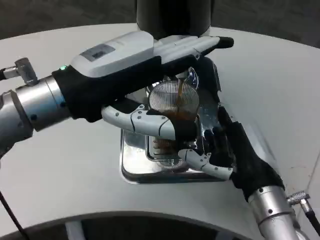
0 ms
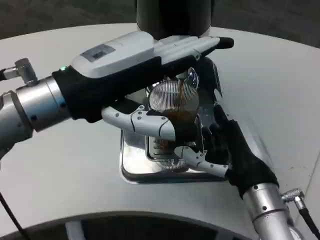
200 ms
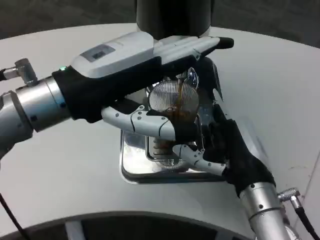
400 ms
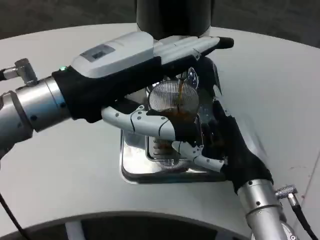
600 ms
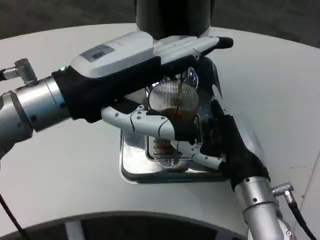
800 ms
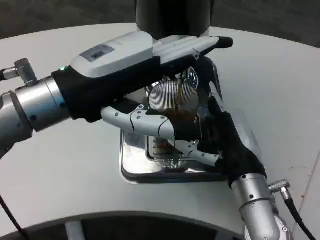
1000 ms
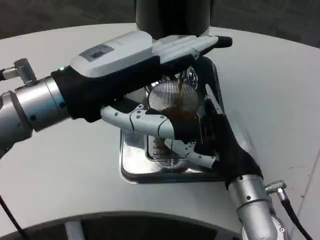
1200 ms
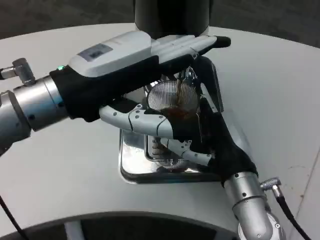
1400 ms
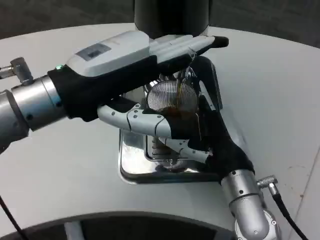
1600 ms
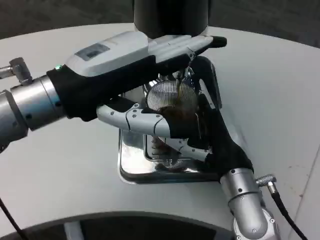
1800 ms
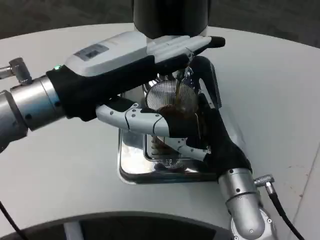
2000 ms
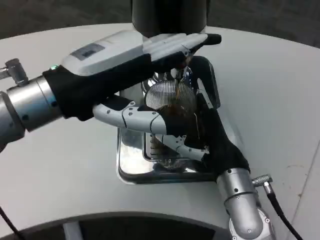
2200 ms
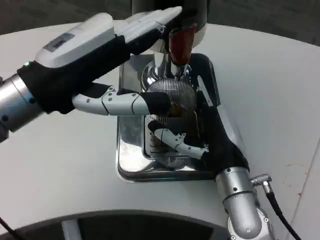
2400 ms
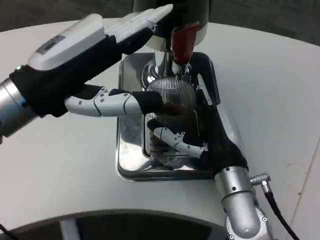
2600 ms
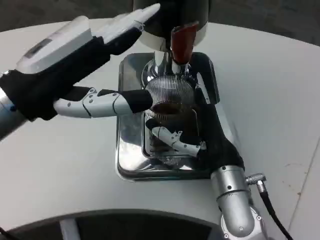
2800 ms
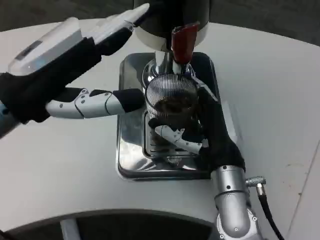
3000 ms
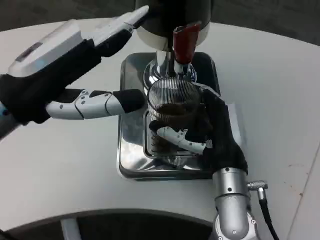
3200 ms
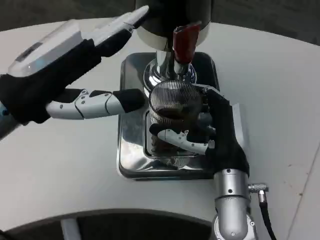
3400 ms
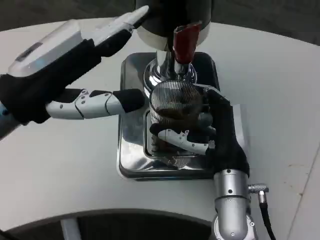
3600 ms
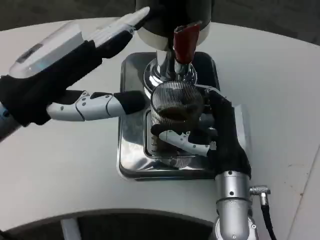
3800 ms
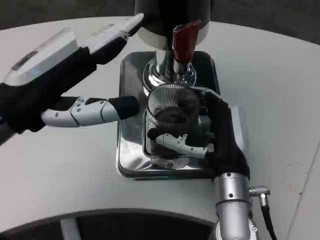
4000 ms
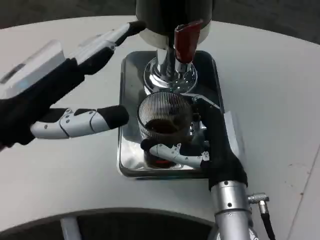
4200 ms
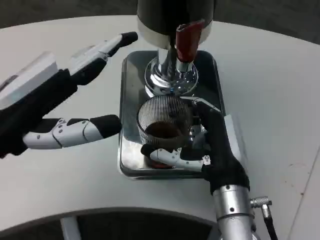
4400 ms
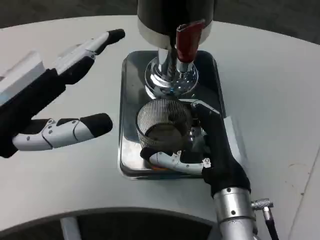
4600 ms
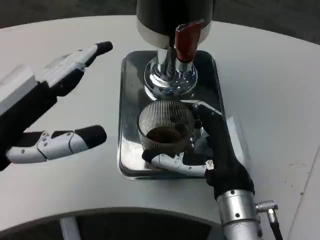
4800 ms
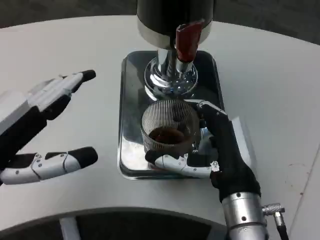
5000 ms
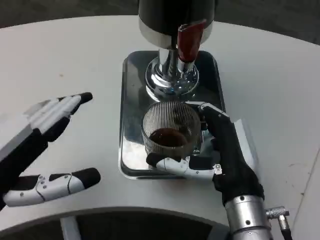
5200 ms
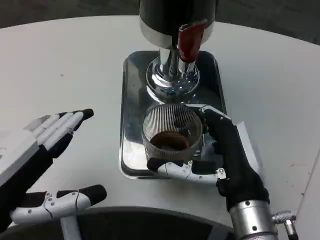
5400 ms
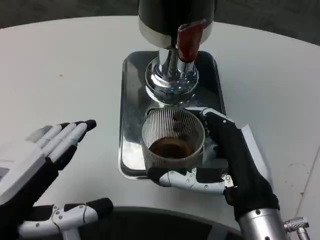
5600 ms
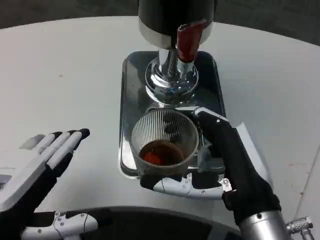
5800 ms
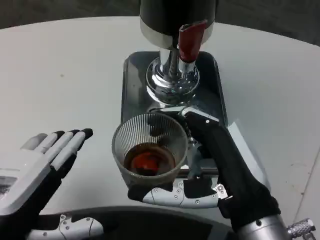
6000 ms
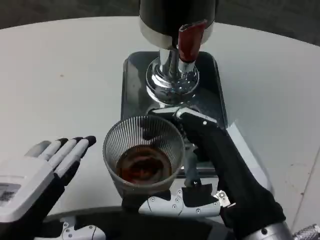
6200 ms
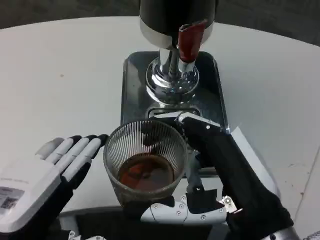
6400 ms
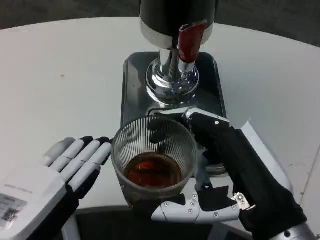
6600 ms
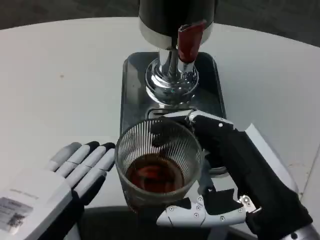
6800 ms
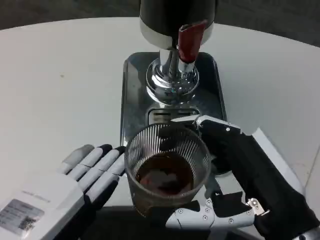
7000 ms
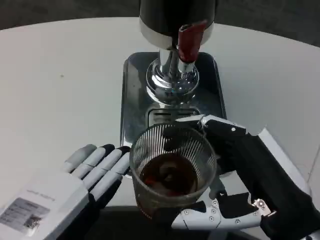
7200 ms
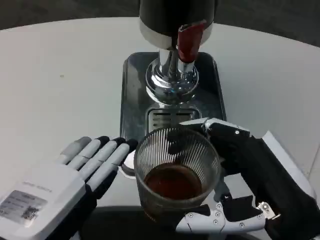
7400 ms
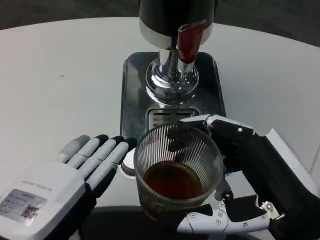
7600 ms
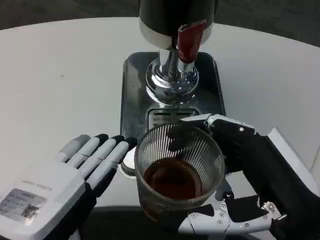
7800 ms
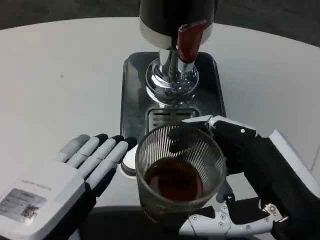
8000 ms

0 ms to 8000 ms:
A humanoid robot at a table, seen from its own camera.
Task of the whole recording: Grasp the cup under the faucet to collect the drink, then remove the cup.
0 ms to 1600 ms: The hands stay close to where they were, moving slightly.
3200 ms to 4800 ms: The left hand shifts roughly 5 cm backward.
4800 ms to 6400 ms: The left hand goes approximately 10 cm backward and downward, while the right hand goes approximately 10 cm backward and upward.

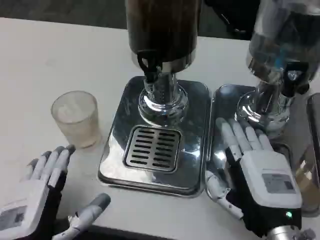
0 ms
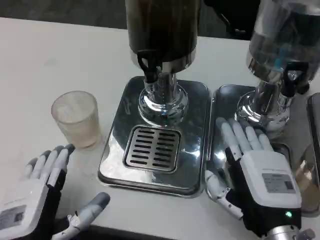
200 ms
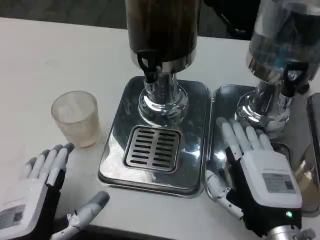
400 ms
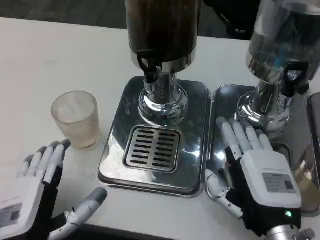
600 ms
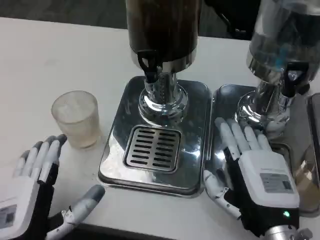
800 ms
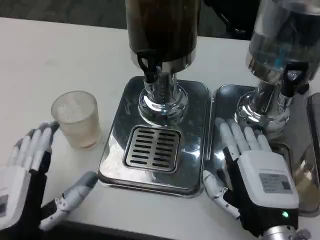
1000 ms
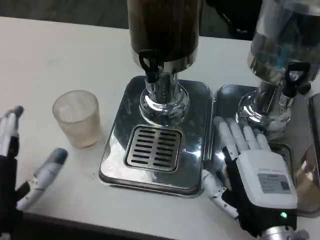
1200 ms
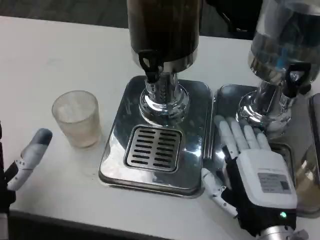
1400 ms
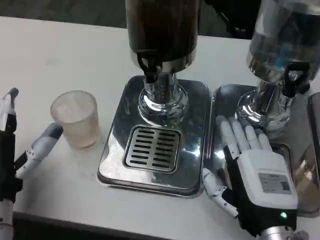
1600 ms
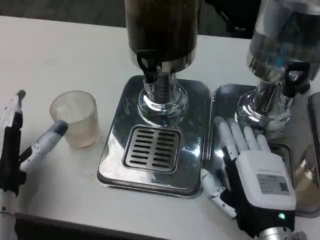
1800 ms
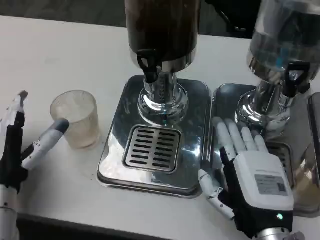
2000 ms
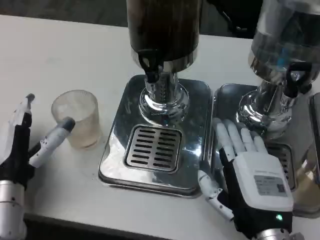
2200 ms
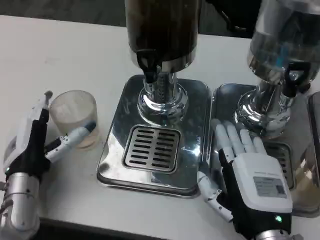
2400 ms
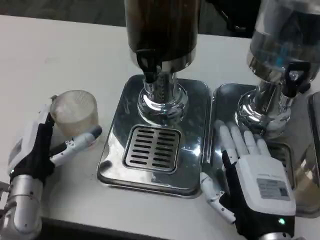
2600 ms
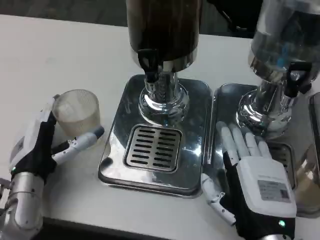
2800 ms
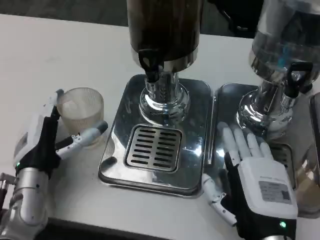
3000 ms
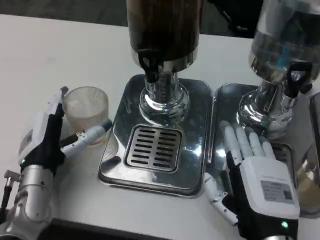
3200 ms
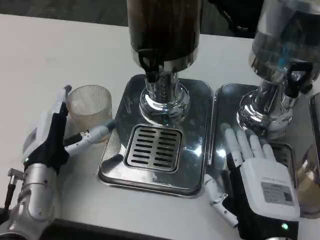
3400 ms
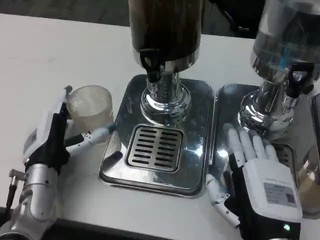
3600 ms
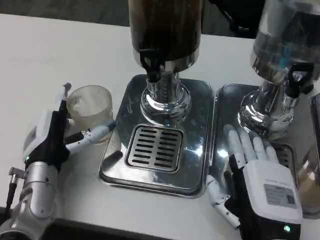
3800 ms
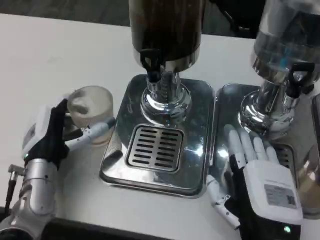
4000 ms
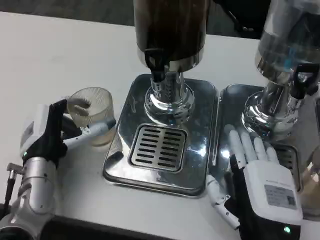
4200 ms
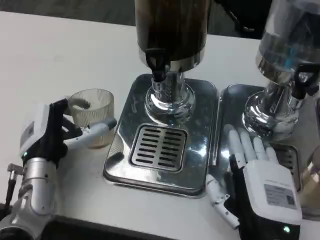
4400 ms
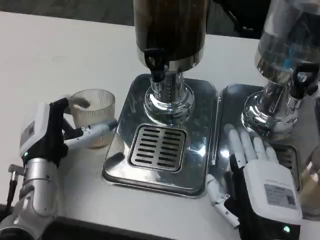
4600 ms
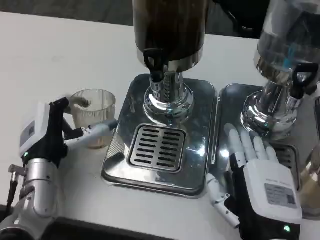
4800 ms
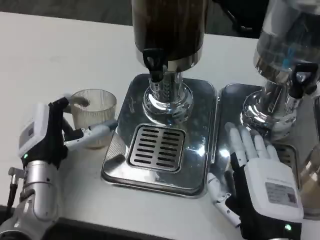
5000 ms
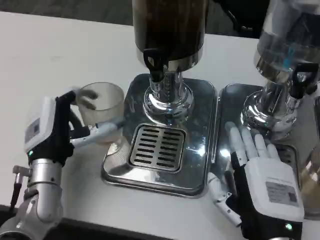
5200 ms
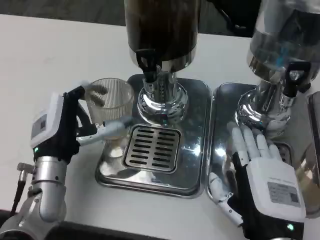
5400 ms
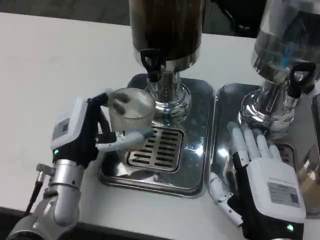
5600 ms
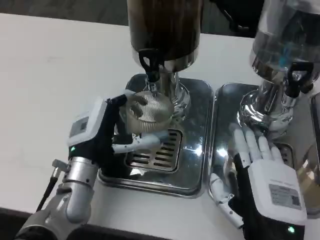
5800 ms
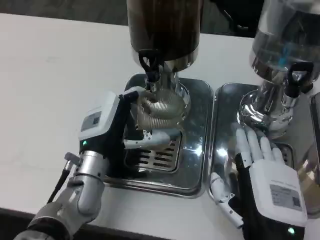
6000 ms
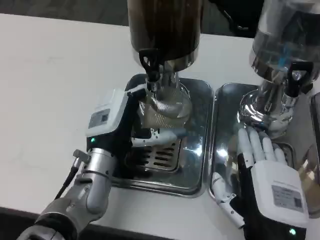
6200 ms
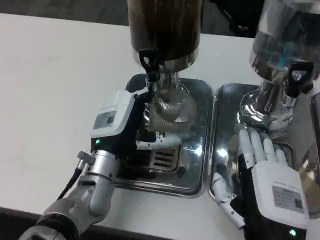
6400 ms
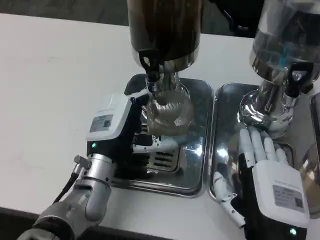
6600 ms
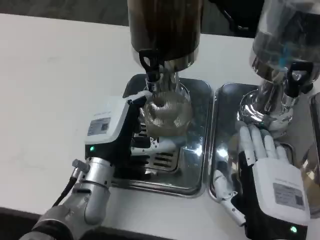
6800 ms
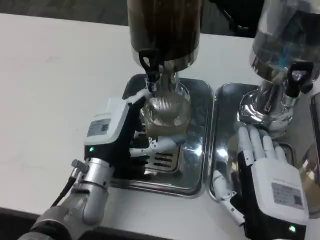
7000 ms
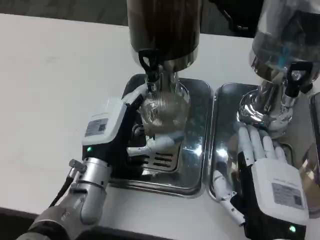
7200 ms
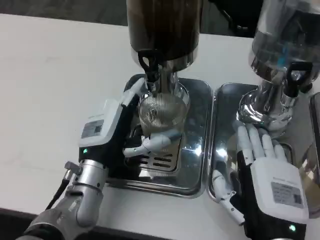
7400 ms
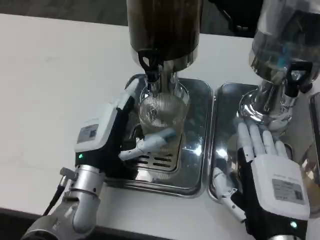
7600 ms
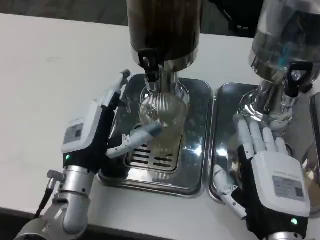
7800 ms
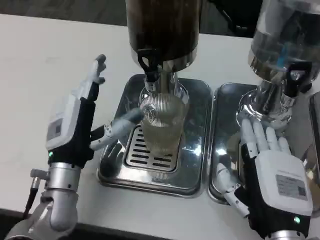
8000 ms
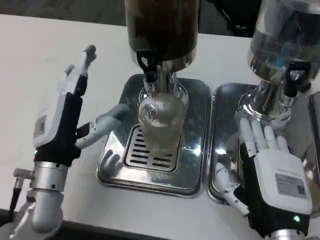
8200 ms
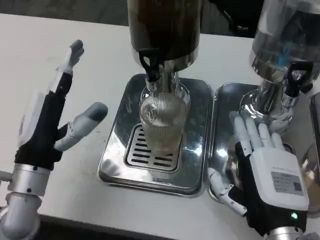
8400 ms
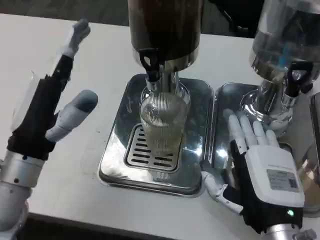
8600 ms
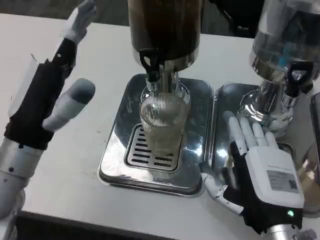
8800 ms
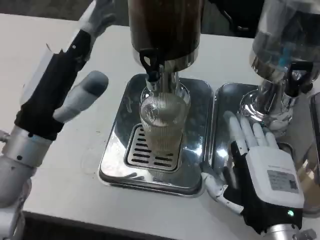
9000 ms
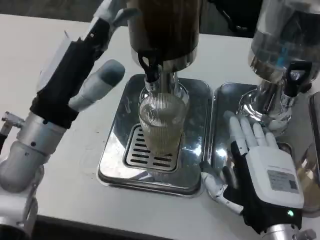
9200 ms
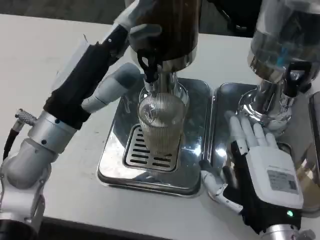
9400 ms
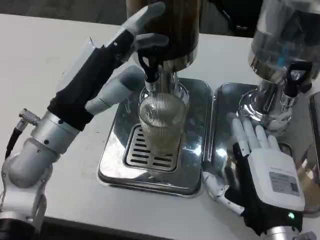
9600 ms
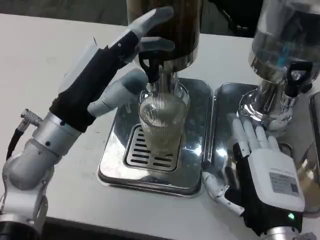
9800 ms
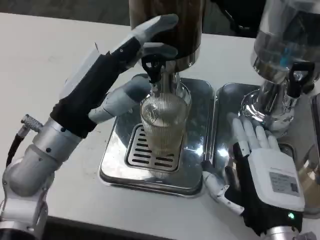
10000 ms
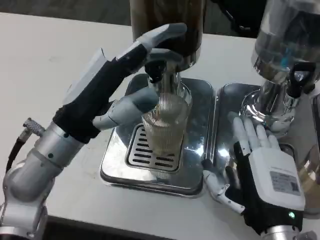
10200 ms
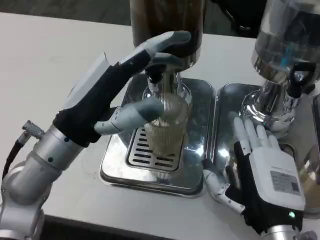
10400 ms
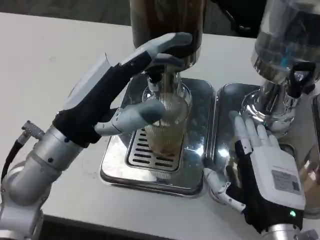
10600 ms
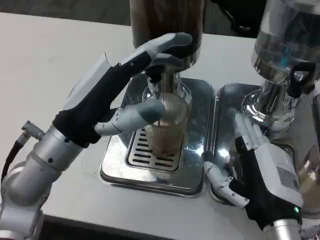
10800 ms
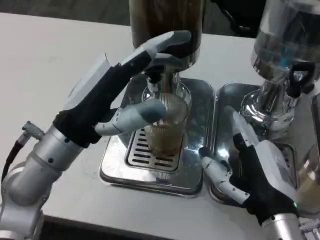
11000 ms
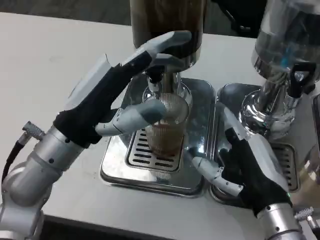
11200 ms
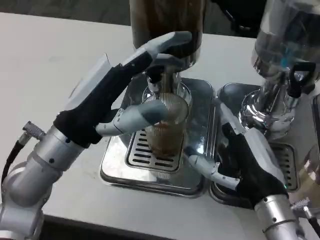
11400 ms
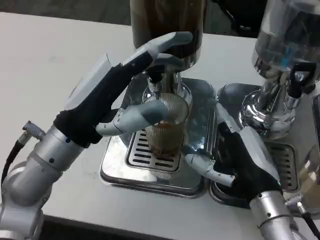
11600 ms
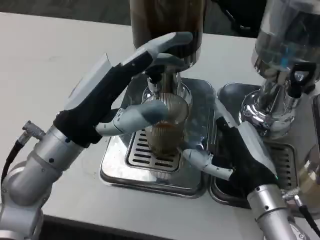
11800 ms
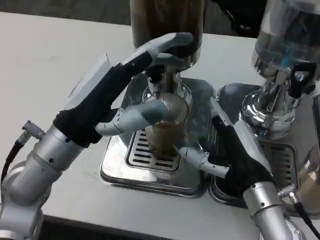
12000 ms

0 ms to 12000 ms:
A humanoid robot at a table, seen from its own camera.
Task of the whole recording: Grasp the cup under the faucet to collect the drink, then remove the cup.
0 ms to 1600 ms: The left hand heads forward, covering roughly 10 cm.
1600 ms to 3000 ms: The left hand travels forward by about 5 cm.
4400 ms to 6000 ms: The left hand is displaced to the right by about 5 cm.
6000 ms to 7600 ms: The hands make only small movements.
7600 ms to 9000 ms: The left hand heads upward and to the left, covering roughly 10 cm.
10400 ms to 12000 ms: The right hand moves forward, approximately 5 cm.

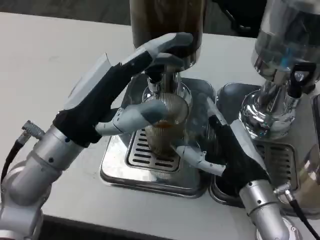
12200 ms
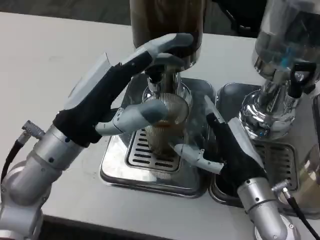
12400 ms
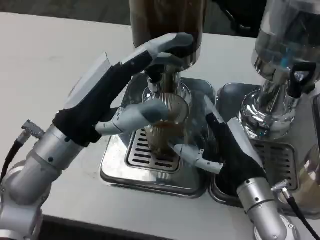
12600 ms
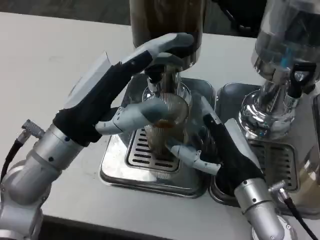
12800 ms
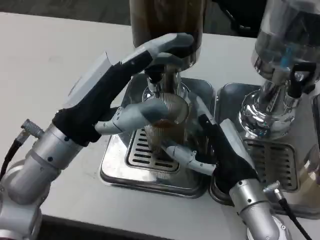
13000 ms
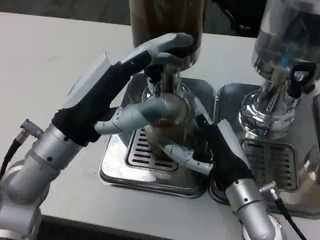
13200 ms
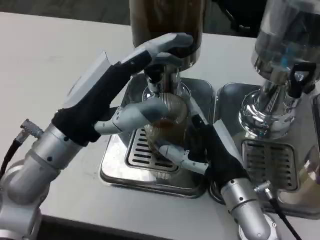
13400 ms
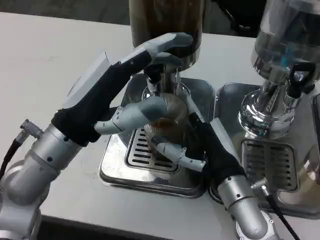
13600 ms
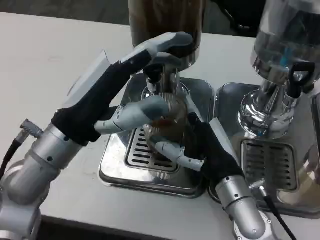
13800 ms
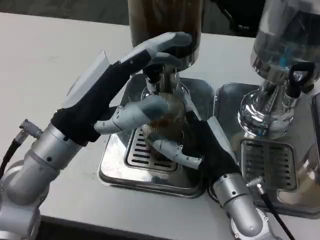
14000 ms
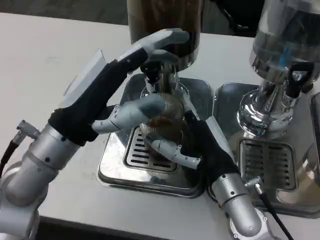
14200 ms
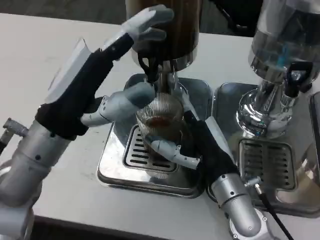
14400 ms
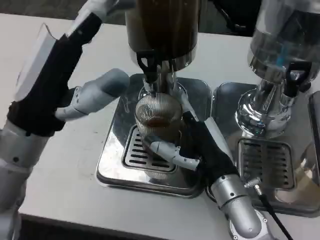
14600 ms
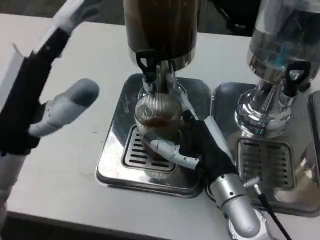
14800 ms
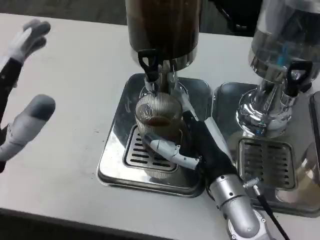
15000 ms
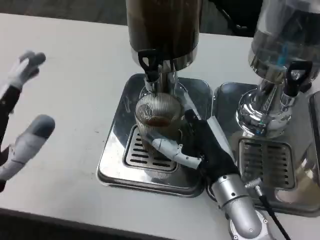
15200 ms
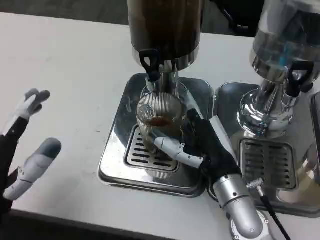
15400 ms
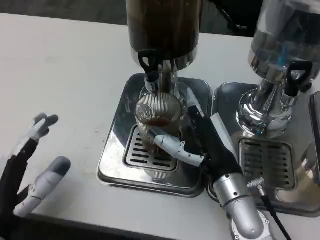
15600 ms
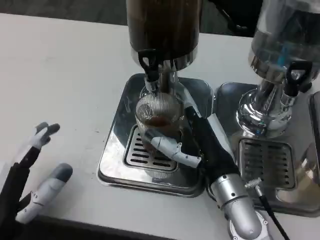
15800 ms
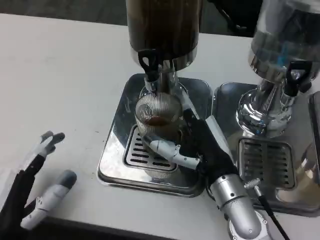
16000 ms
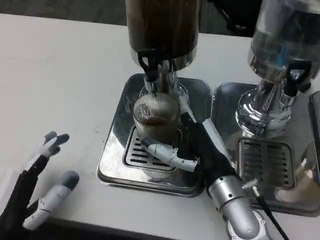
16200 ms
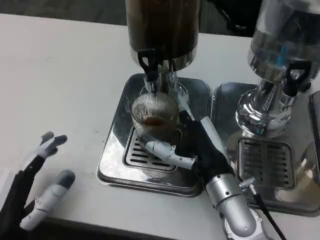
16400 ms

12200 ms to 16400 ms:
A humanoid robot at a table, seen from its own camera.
Task of the whole recording: Grasp the cup under the faucet to collect the drink, then remove the cup.
12200 ms to 13600 ms: The hands move only a little.
13600 ms to 15000 ms: The left hand goes roughly 10 cm to the left and backward.
15000 ms to 16400 ms: The left hand travels downward and backward by roughly 10 cm.
